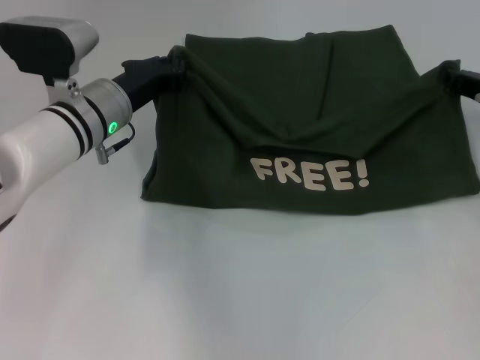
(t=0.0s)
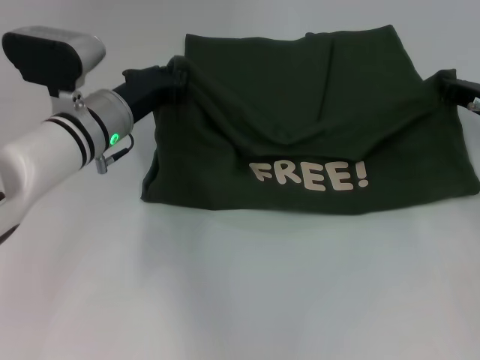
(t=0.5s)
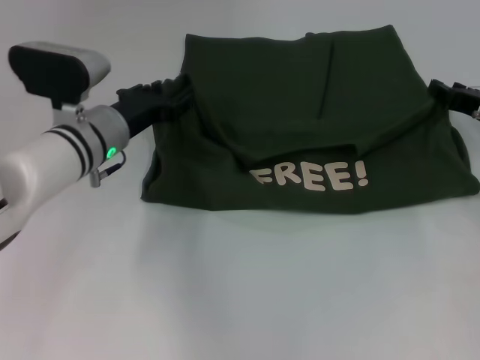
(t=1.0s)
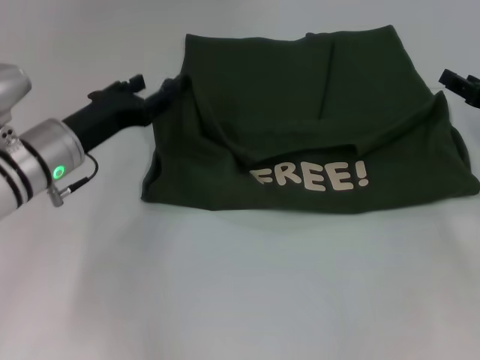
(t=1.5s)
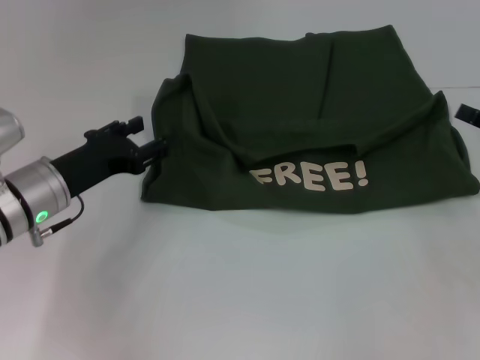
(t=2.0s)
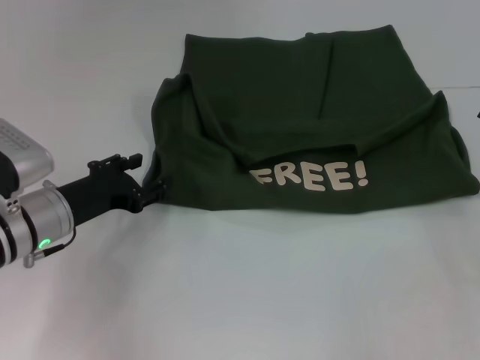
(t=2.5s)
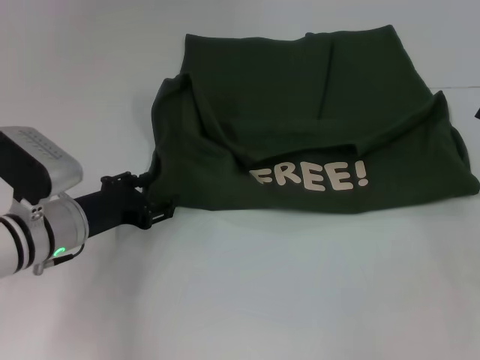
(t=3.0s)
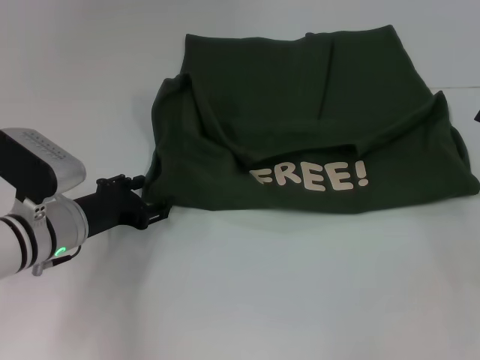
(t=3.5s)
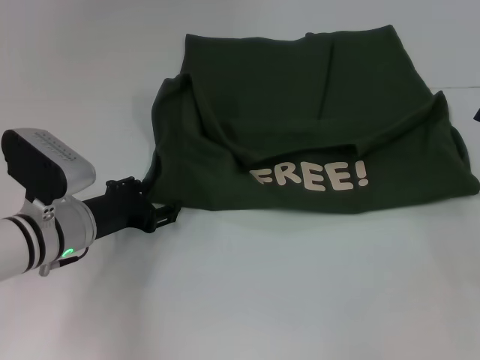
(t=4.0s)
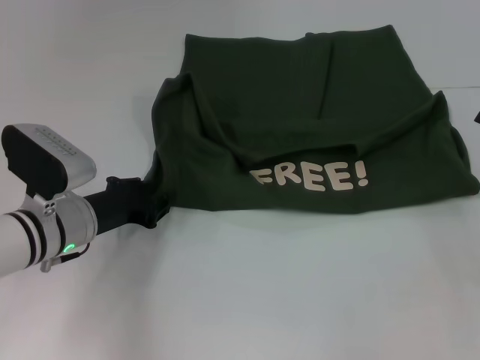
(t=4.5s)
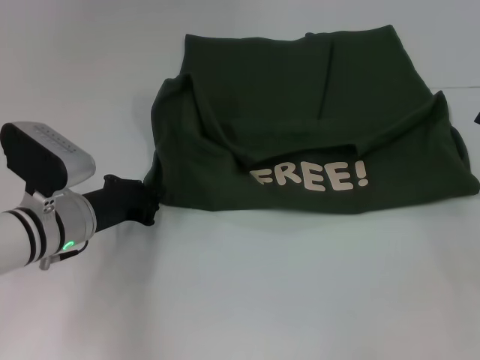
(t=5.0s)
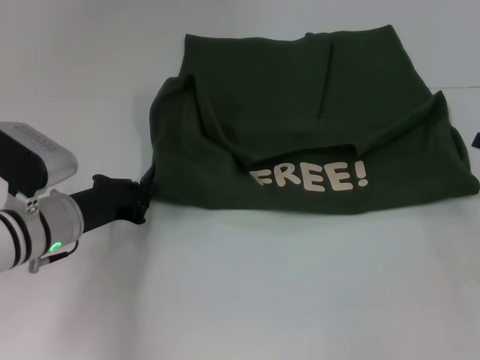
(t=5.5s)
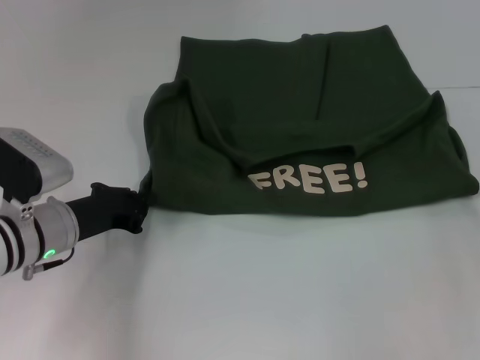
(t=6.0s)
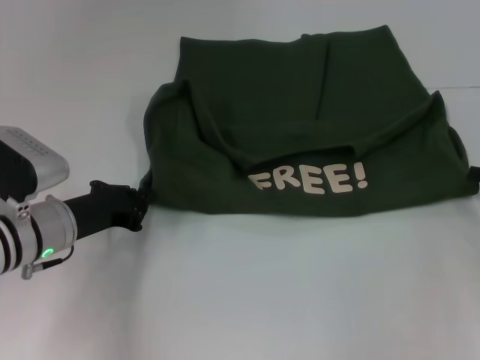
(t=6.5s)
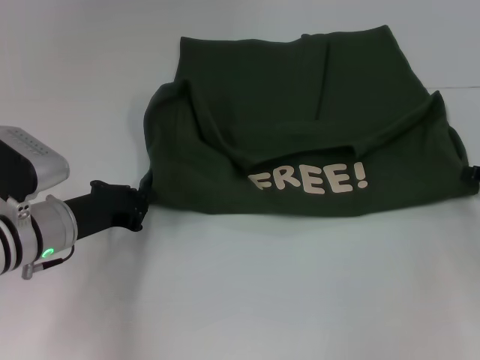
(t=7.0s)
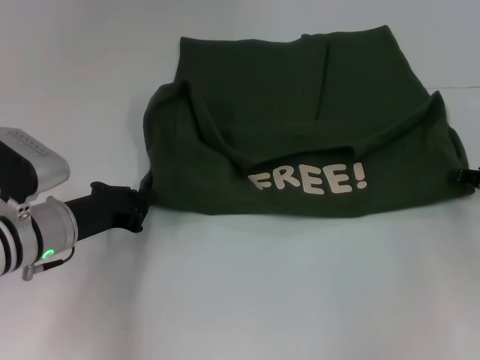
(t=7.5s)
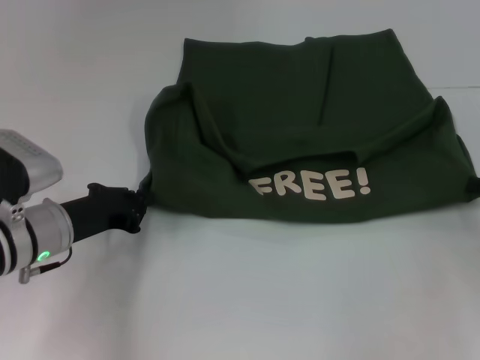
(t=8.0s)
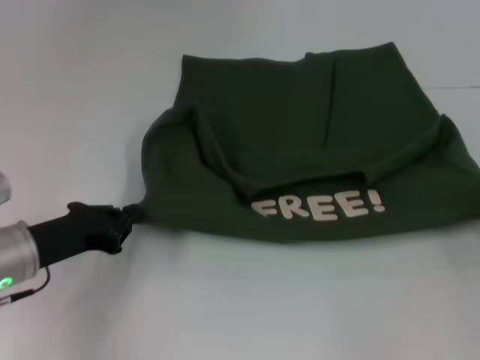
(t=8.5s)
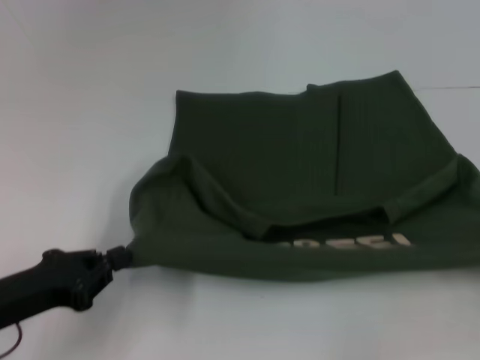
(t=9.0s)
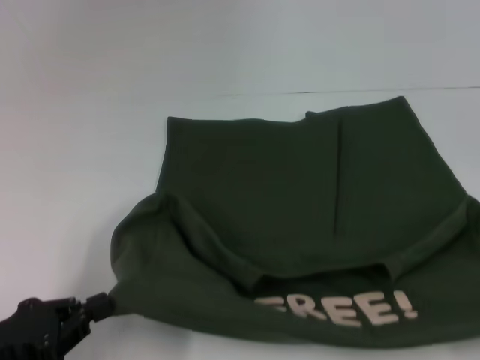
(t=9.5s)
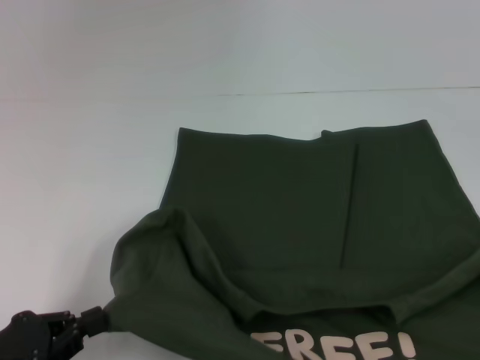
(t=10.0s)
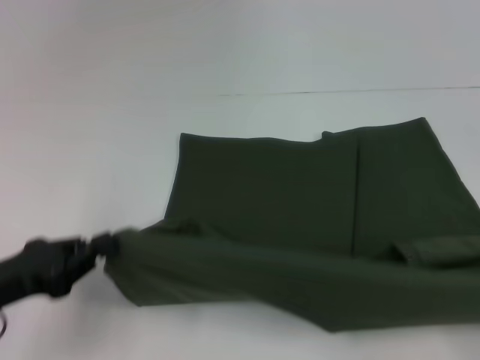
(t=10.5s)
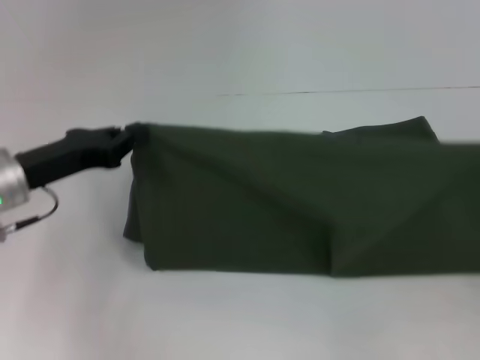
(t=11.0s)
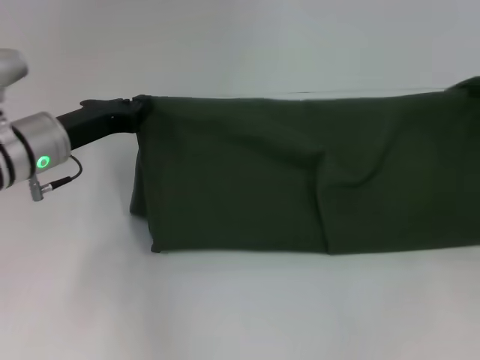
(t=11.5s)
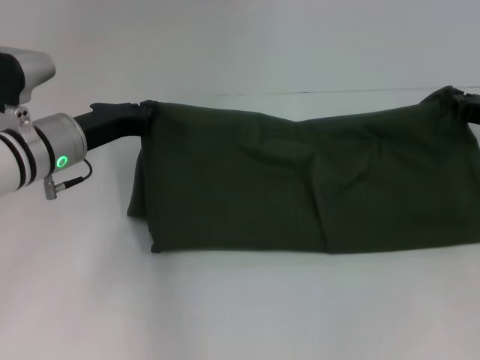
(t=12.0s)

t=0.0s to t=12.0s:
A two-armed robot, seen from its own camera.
Step, t=1.5s to t=9.5s: Pull the clothes with your left hand.
Step, t=1.5s to t=9.5s: Pull the clothes with your right hand.
t=0.0s to t=2.0s: The right gripper is displaced backward and to the right by roughly 10 cm, and opens up. The left gripper heads backward and to the left, covering some 10 cm, and opens.
t=4.0s to t=6.0s: The left gripper closes up.
t=6.0s to t=8.0s: The right gripper closes its fingers.
t=8.0s to t=10.0s: The right gripper shifts approximately 25 cm backward; the left gripper shifts approximately 20 cm backward and to the left.
t=10.0s to t=12.0s: The right gripper is displaced forward by approximately 30 cm. The left gripper shifts about 25 cm forward and to the right.

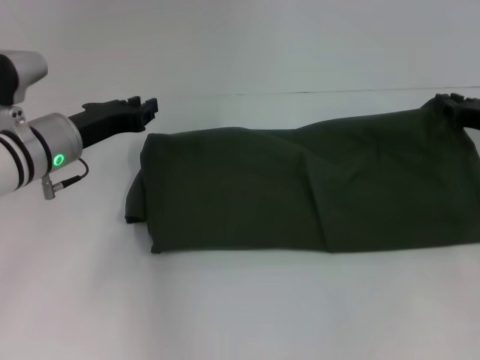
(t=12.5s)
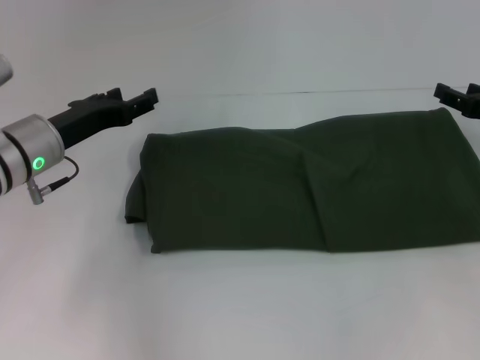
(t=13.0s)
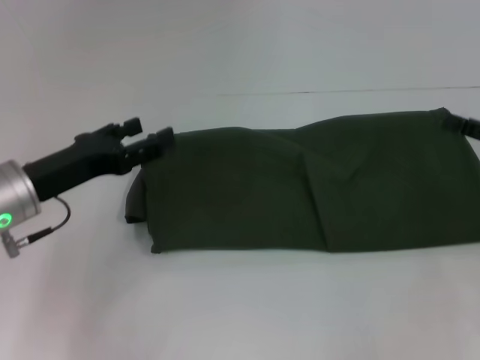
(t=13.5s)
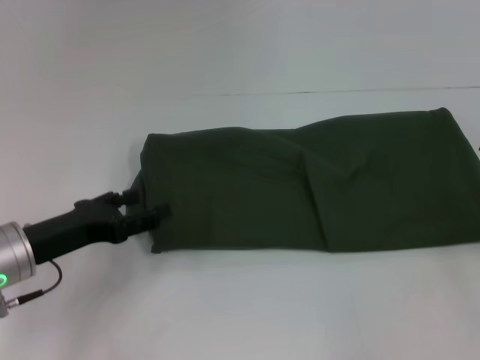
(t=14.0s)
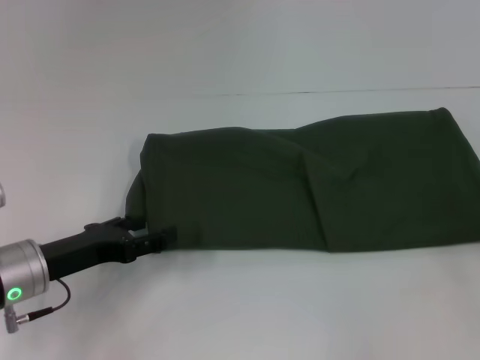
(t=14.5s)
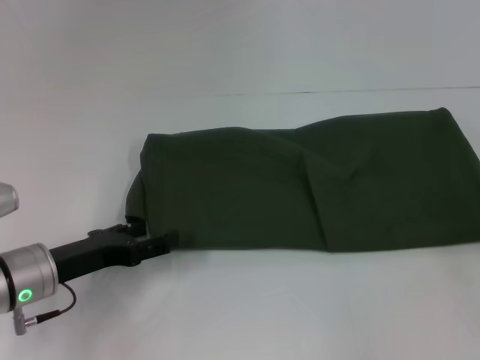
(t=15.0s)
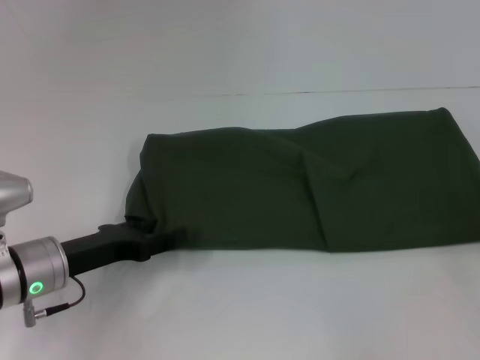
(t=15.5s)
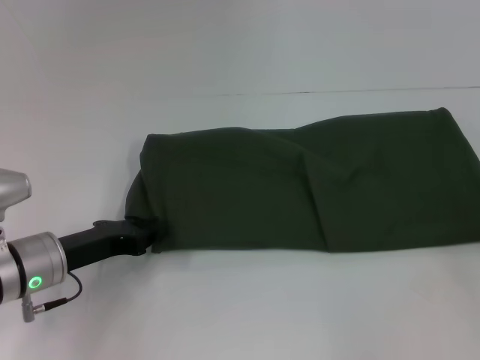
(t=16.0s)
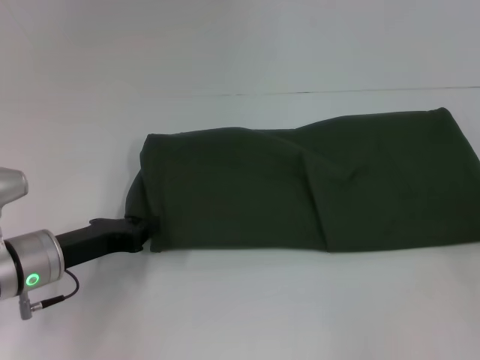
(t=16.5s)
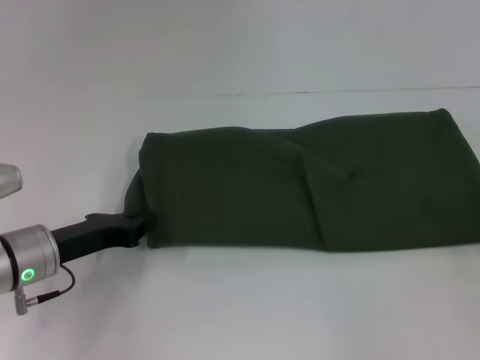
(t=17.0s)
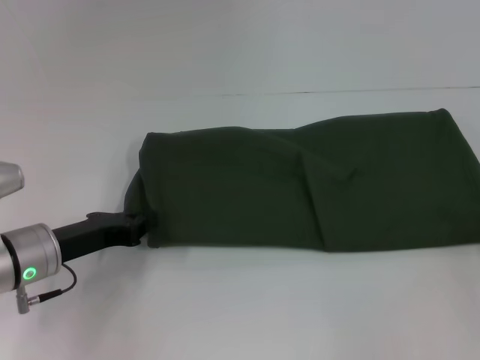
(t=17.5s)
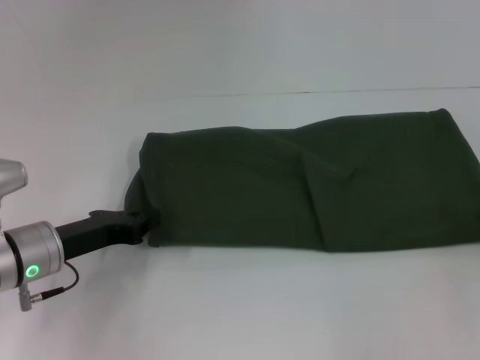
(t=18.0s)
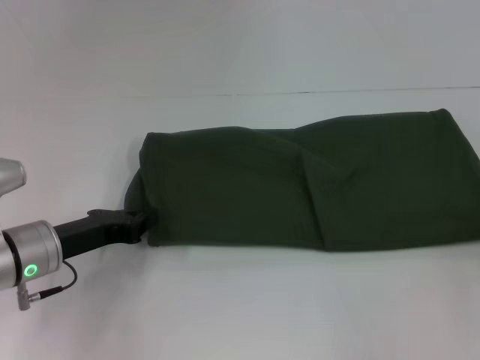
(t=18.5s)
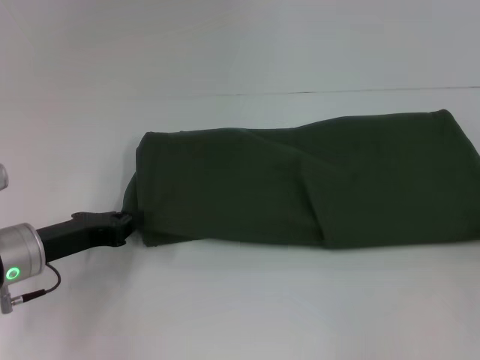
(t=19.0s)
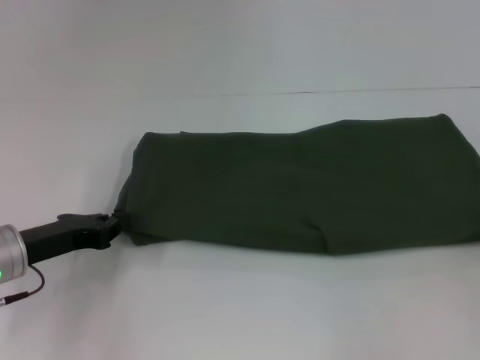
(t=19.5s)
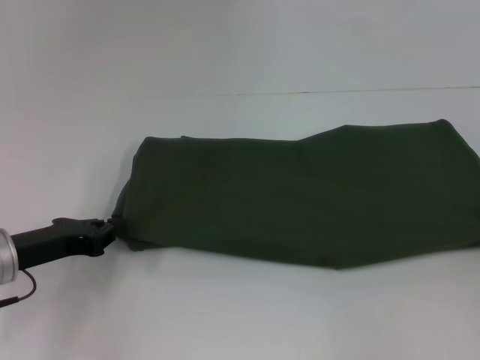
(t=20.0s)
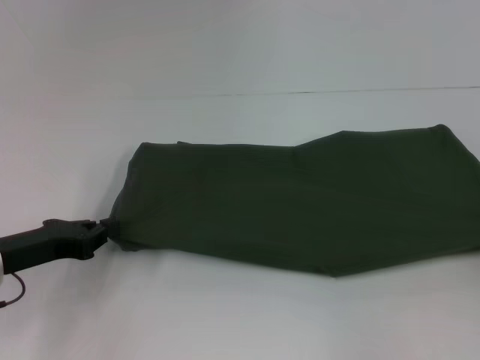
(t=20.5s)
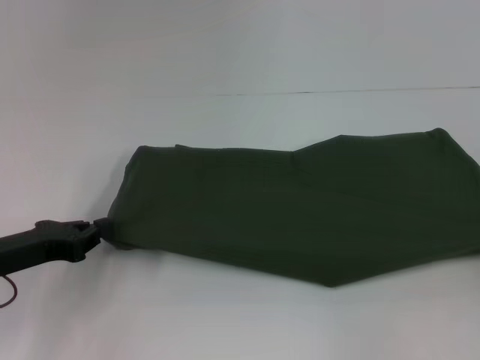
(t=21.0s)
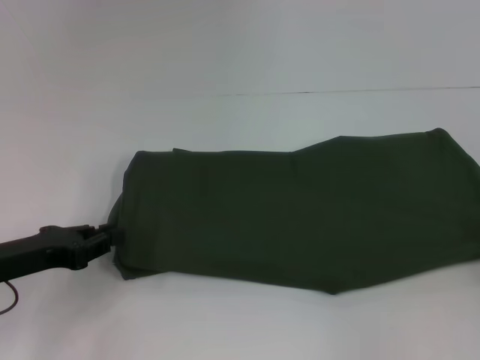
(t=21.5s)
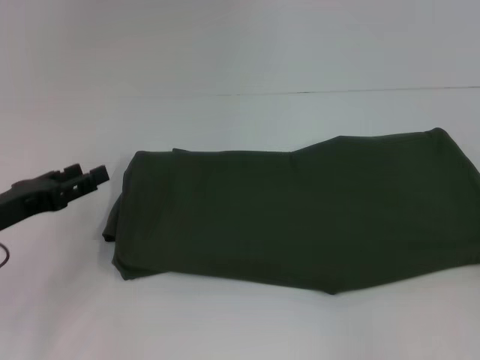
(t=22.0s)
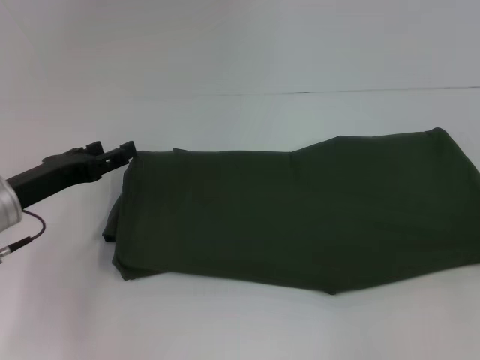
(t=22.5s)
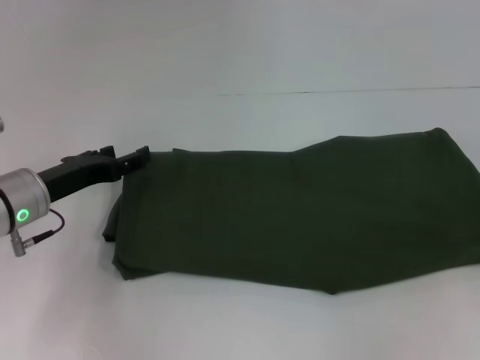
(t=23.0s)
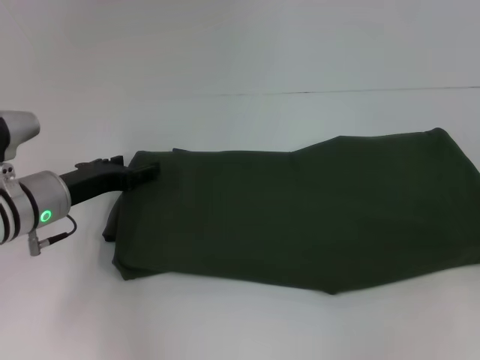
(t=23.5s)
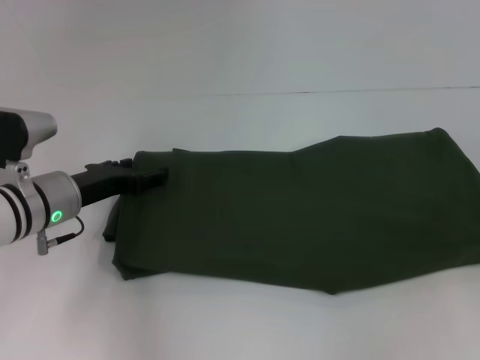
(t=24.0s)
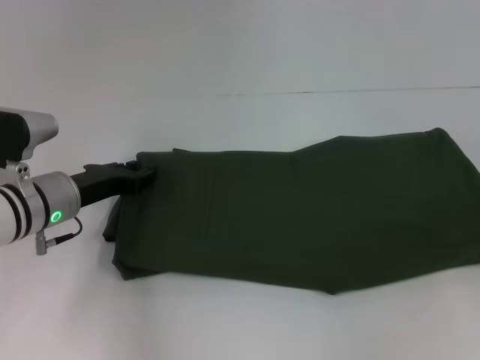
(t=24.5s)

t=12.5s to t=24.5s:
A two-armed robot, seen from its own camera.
Step, t=13.0s to t=21.5s: Pull the clothes with your left hand.
Step, t=13.0s to t=21.5s: Pull the clothes with your right hand.
t=12.5s to t=14.5s: The right gripper is displaced backward and to the right by approximately 10 cm, and opens, while the left gripper goes about 10 cm backward and downward, and opens up.
t=14.5s to t=16.5s: The left gripper closes up.
t=18.5s to t=20.5s: The left gripper shifts by about 5 cm.
t=20.5s to t=22.5s: The right gripper shifts by roughly 5 cm, and opens; the left gripper opens.
t=22.5s to t=24.5s: The left gripper changes place by some 5 cm.

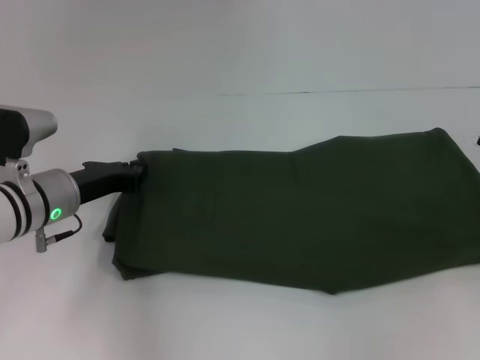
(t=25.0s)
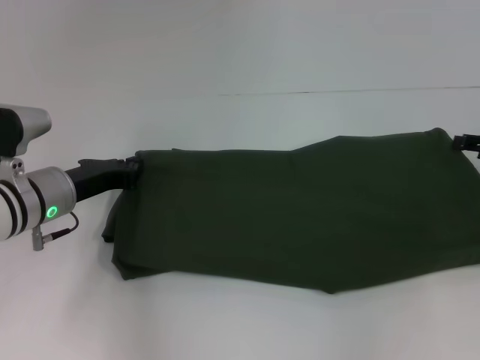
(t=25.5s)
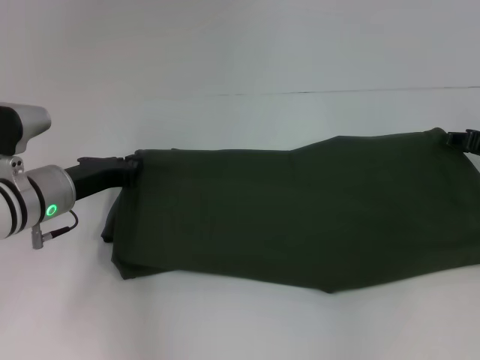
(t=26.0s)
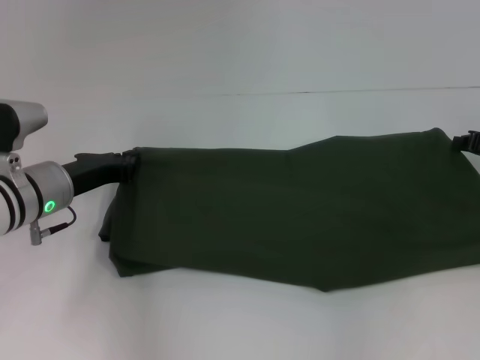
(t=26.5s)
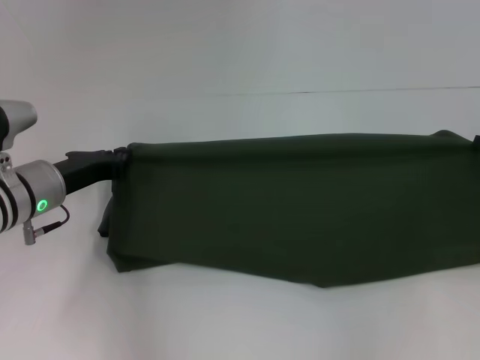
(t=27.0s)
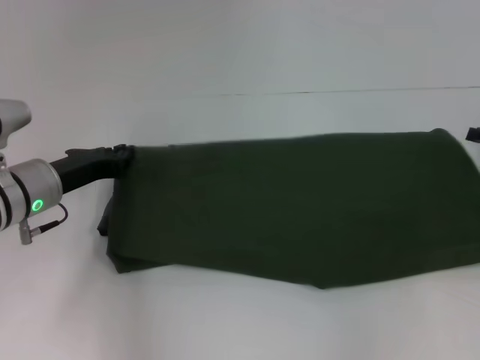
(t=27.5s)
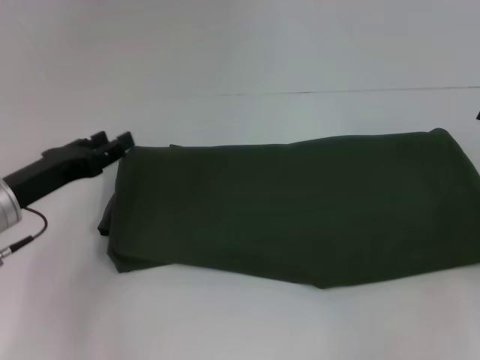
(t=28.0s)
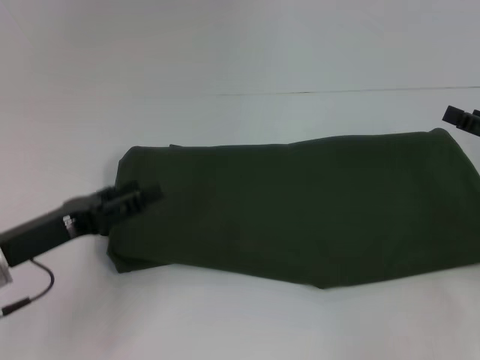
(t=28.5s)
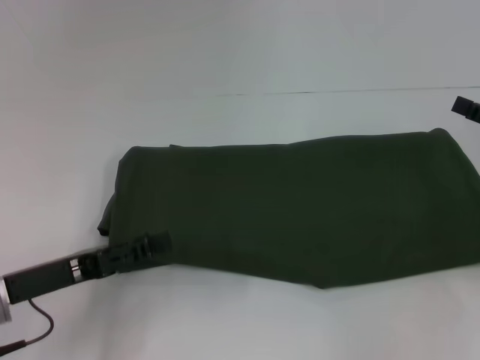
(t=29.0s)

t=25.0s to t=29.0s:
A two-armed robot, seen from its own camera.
t=25.0s to t=27.0s: The right gripper closes.
t=27.0s to t=29.0s: The left gripper shifts some 10 cm backward, and opens its fingers; the right gripper ends up roughly 5 cm from where it was, and opens its fingers.
